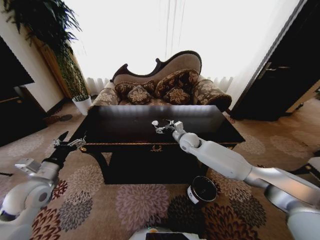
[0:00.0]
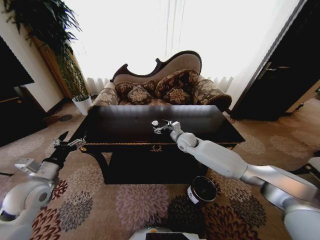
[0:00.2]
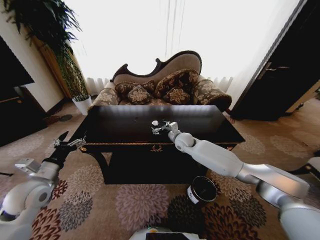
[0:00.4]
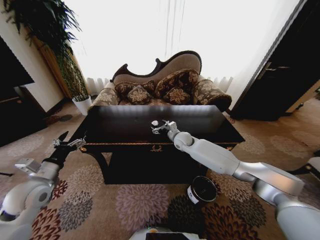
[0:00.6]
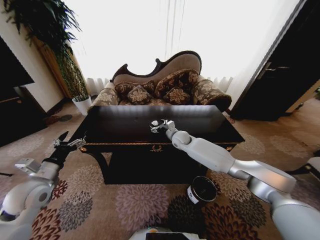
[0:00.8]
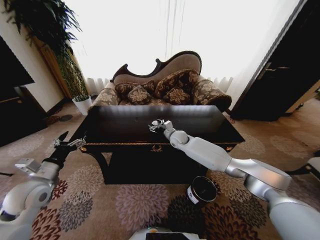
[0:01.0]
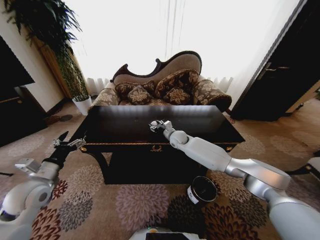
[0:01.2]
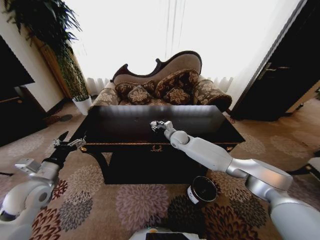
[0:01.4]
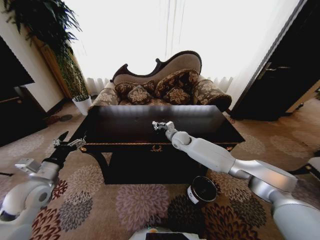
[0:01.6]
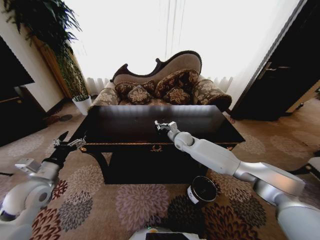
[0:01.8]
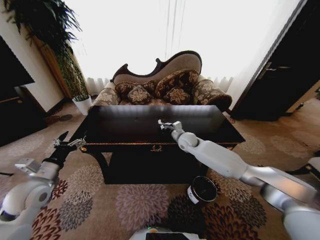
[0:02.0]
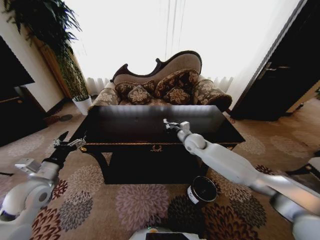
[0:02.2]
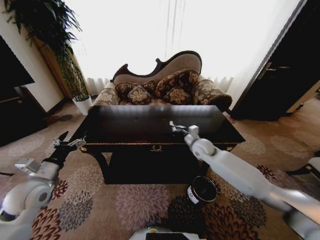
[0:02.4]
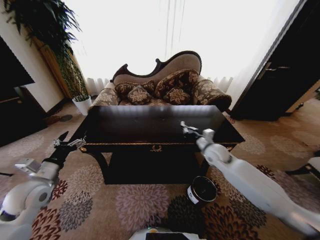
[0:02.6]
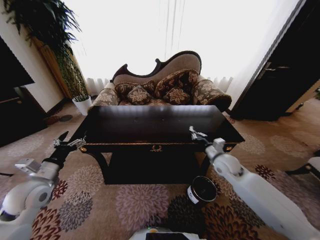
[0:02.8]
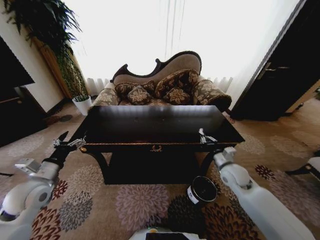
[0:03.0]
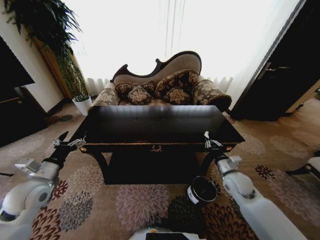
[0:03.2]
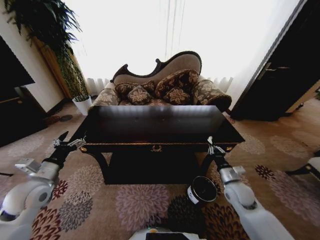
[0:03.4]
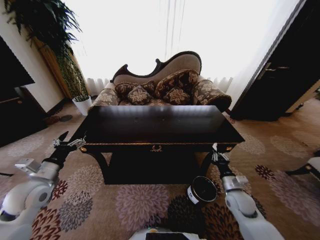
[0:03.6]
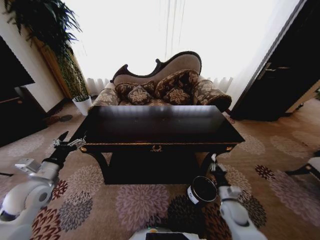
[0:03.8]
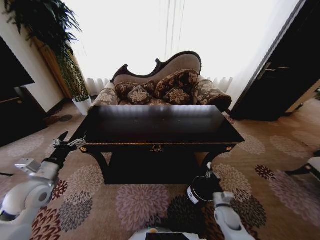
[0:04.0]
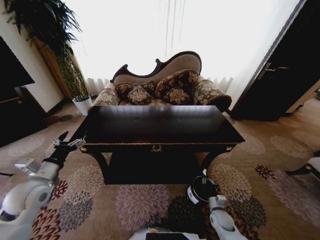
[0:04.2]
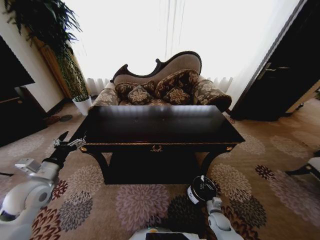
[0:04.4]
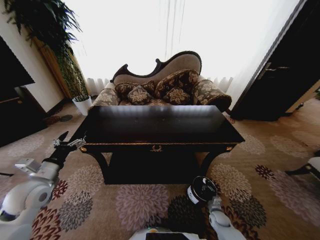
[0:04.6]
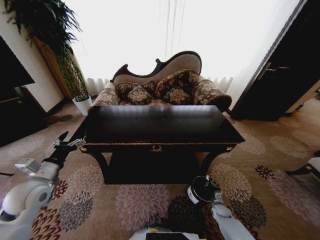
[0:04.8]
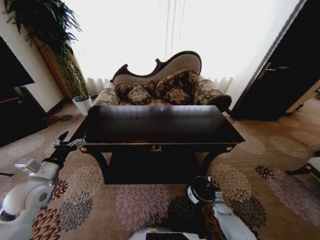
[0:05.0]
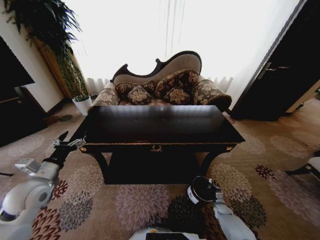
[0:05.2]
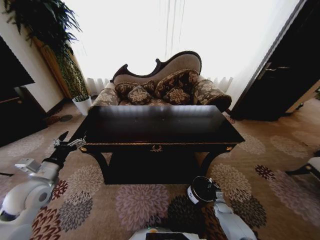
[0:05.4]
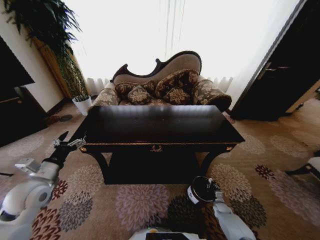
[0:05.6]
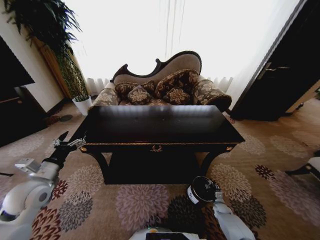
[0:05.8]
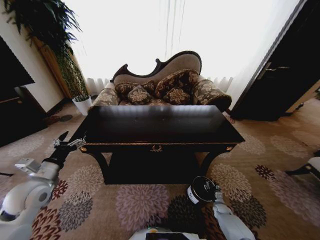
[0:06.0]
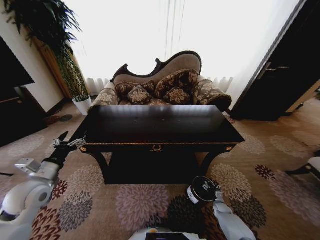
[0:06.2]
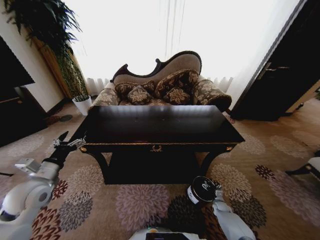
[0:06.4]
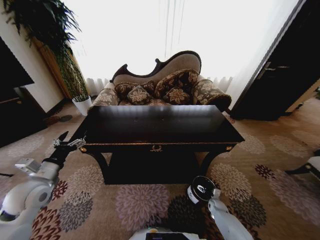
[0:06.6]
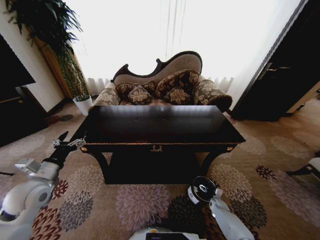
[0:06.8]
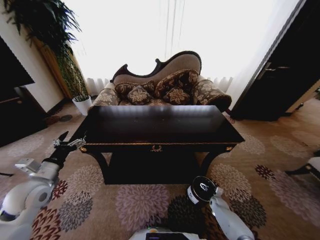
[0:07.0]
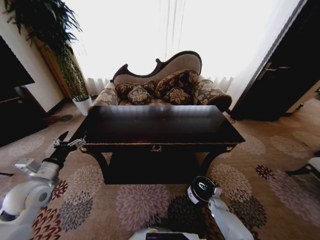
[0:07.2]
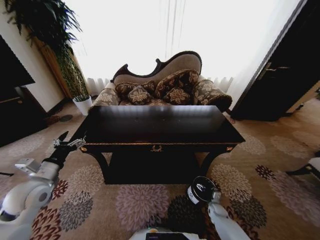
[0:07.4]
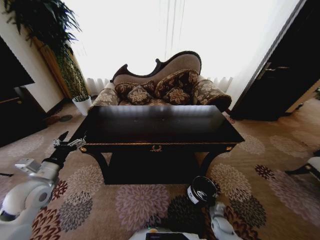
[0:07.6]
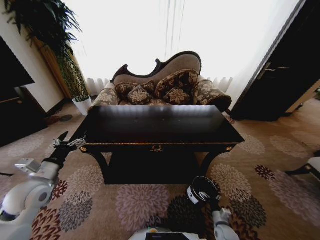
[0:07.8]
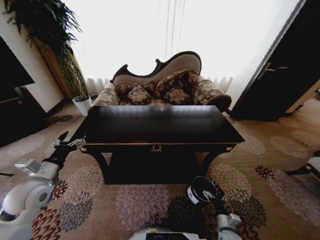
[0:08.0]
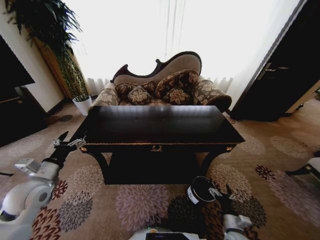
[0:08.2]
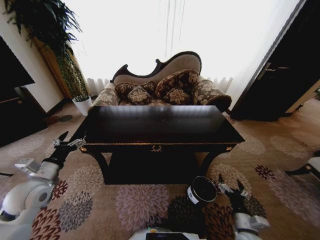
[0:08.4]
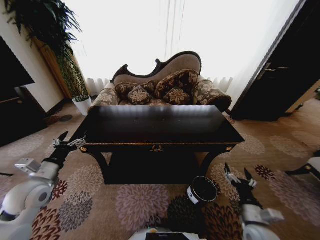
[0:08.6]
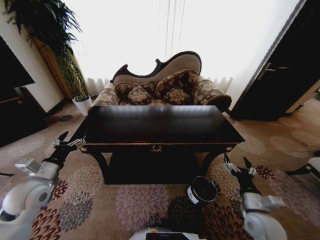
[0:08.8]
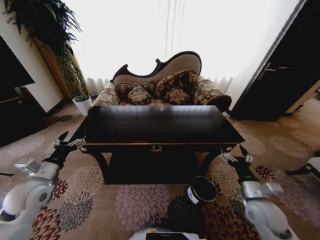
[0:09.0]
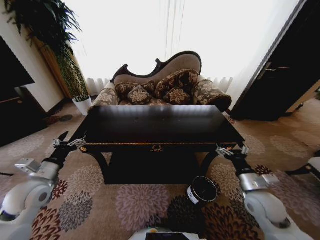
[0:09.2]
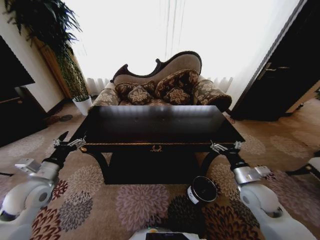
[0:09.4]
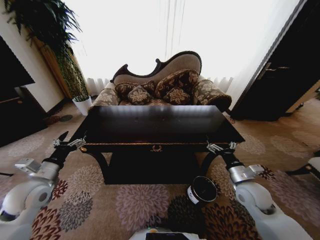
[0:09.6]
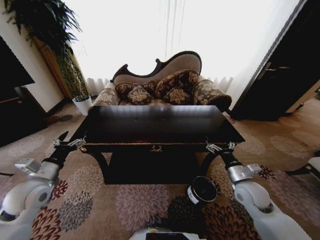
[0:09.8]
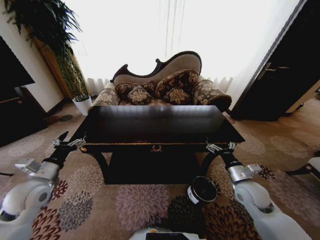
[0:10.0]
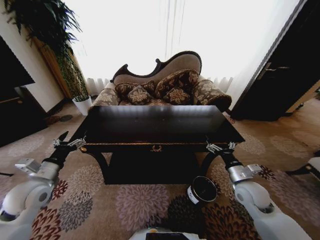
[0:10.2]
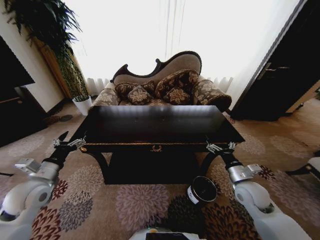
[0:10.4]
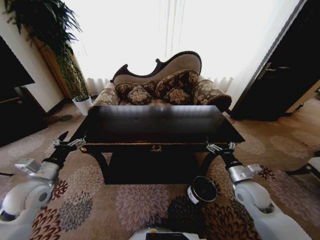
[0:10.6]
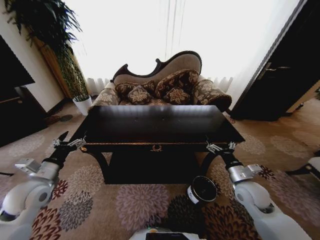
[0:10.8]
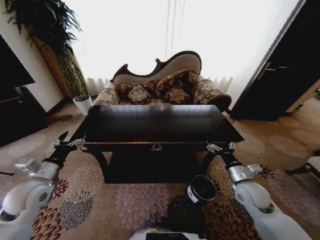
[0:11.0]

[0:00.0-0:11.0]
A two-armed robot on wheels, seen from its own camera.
Task of the whole recording: Move to the front of the table and place the trash on the table into the trash bin.
0:00.0 to 0:01.6: The right gripper shifts by approximately 5 cm, and closes.
0:01.6 to 0:03.2: The right gripper is displaced backward and to the right by about 30 cm.
0:03.2 to 0:04.8: The right gripper heads downward, covering some 30 cm.
0:04.8 to 0:06.2: The right gripper opens its fingers.
0:06.2 to 0:07.8: The right gripper is displaced backward, to the left and upward by approximately 15 cm.
0:07.8 to 0:09.4: The right gripper heads upward, covering roughly 30 cm.
0:09.4 to 0:11.0: The grippers stay close to where they were, moving slightly.
